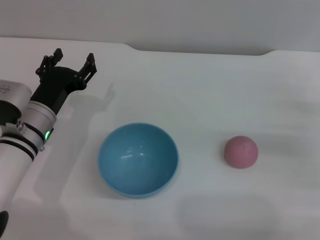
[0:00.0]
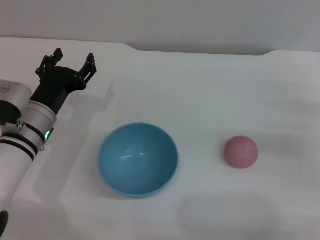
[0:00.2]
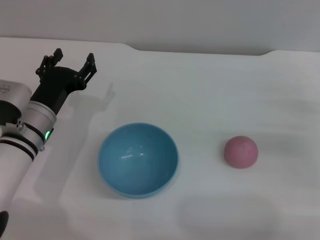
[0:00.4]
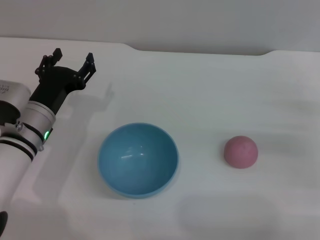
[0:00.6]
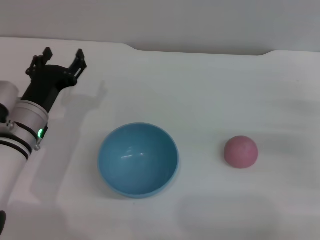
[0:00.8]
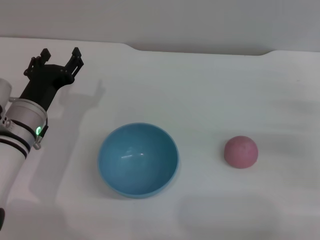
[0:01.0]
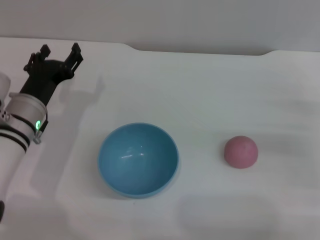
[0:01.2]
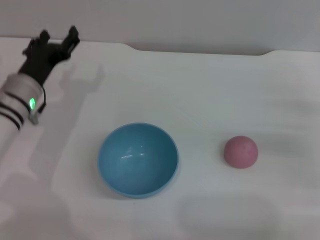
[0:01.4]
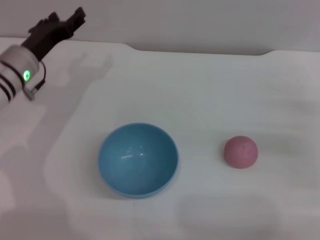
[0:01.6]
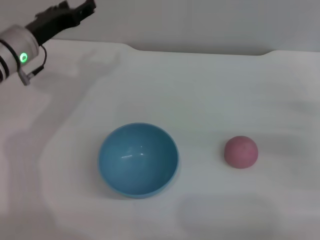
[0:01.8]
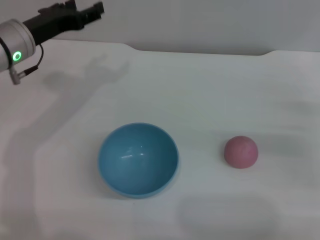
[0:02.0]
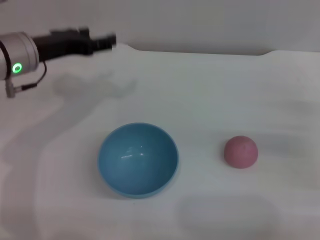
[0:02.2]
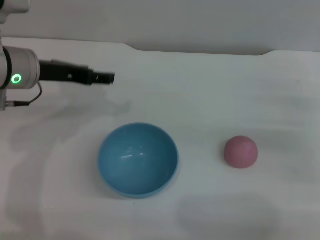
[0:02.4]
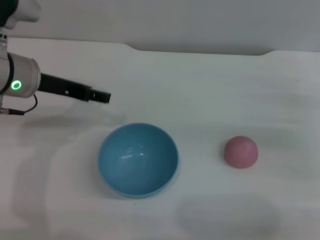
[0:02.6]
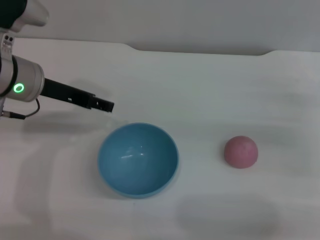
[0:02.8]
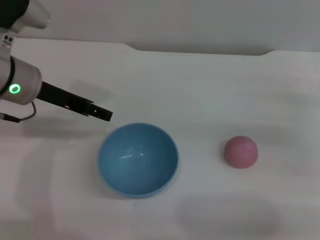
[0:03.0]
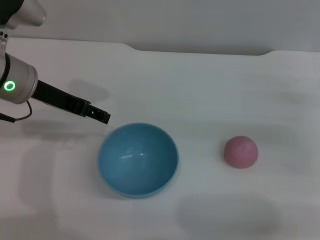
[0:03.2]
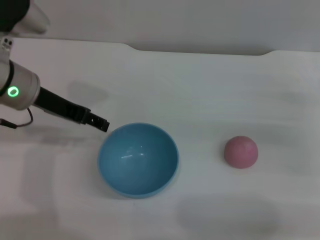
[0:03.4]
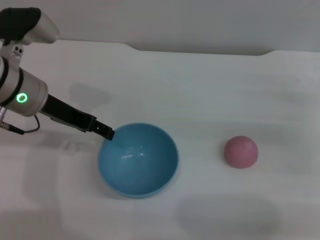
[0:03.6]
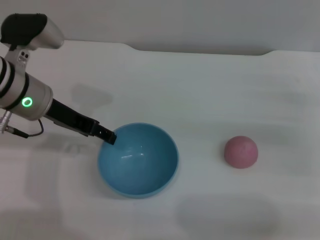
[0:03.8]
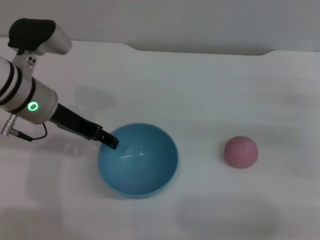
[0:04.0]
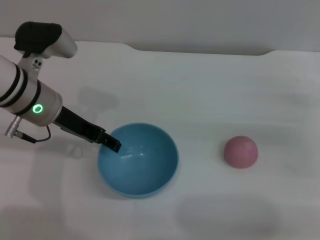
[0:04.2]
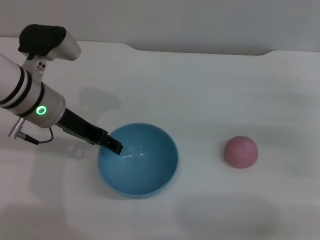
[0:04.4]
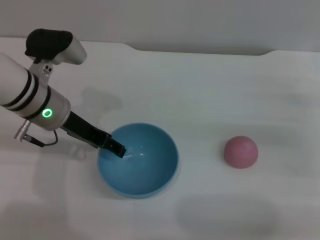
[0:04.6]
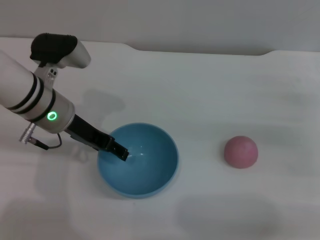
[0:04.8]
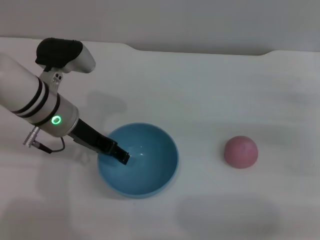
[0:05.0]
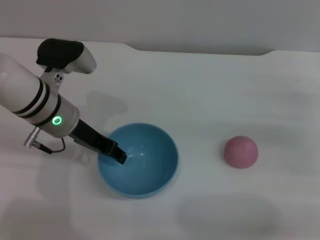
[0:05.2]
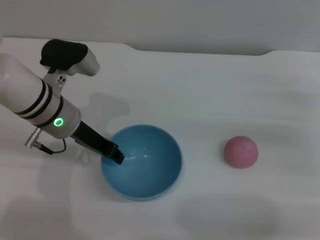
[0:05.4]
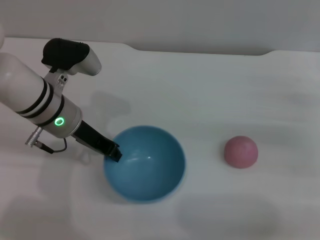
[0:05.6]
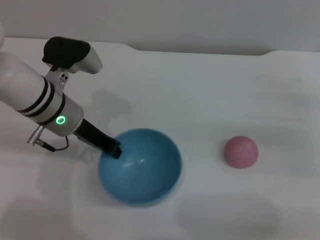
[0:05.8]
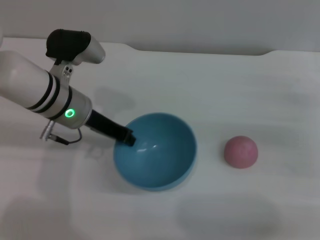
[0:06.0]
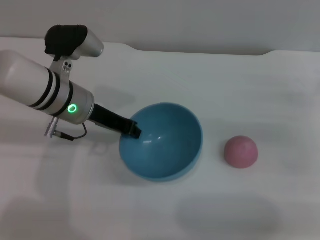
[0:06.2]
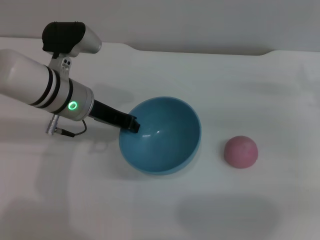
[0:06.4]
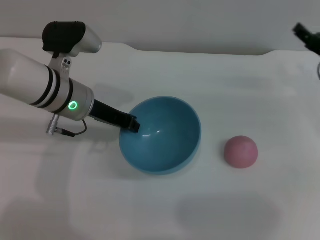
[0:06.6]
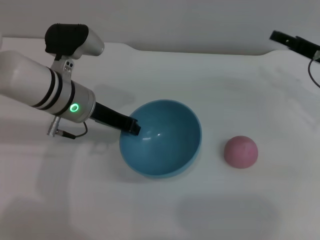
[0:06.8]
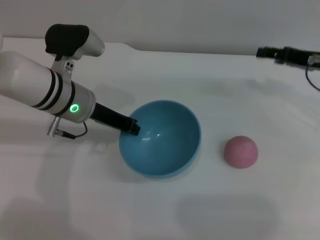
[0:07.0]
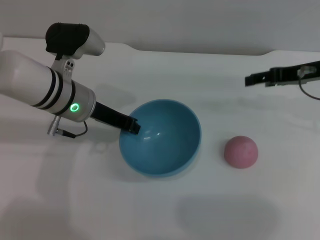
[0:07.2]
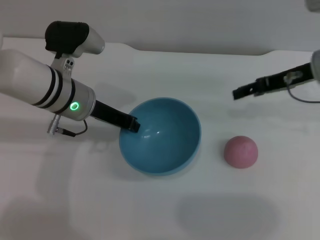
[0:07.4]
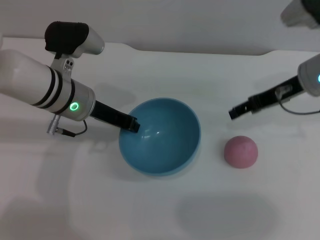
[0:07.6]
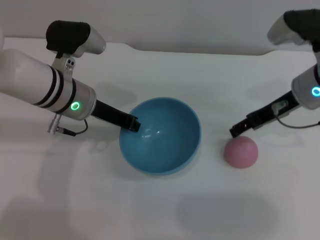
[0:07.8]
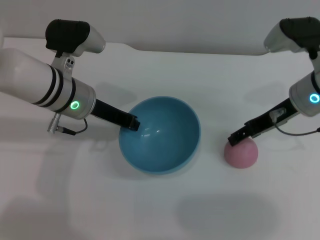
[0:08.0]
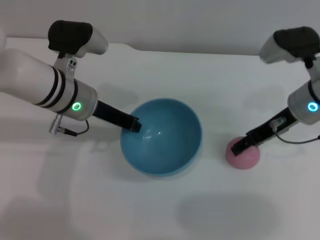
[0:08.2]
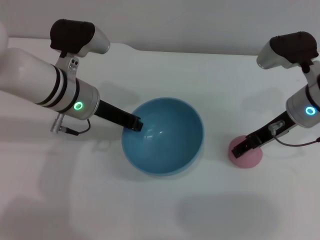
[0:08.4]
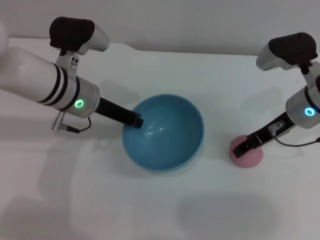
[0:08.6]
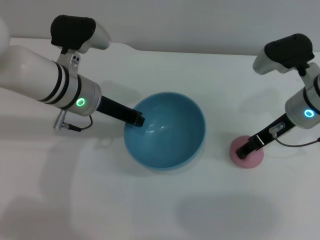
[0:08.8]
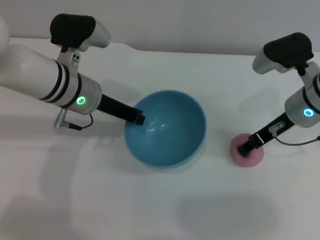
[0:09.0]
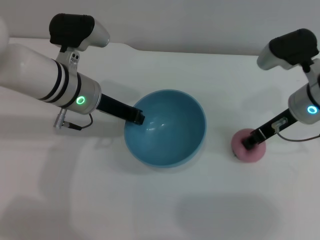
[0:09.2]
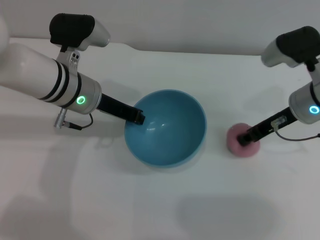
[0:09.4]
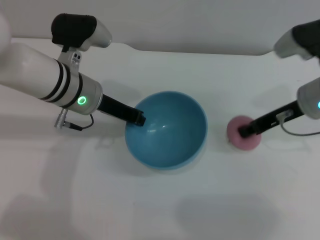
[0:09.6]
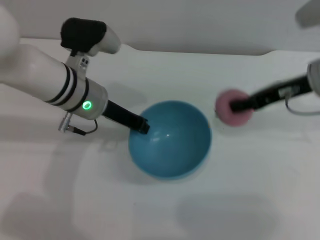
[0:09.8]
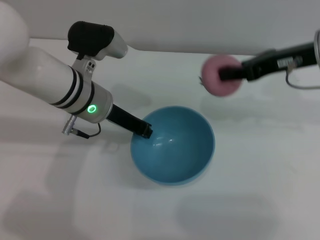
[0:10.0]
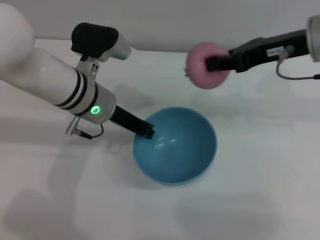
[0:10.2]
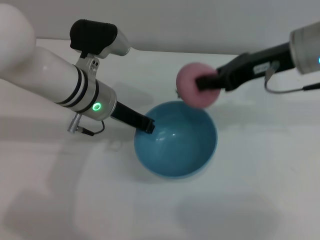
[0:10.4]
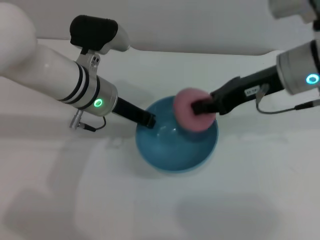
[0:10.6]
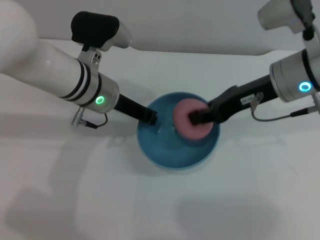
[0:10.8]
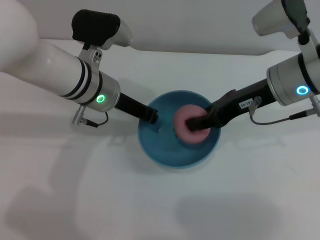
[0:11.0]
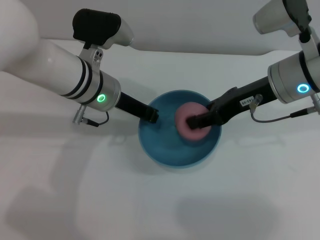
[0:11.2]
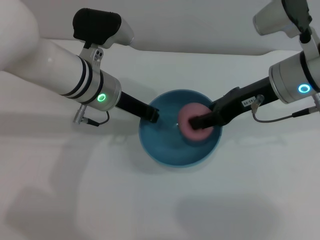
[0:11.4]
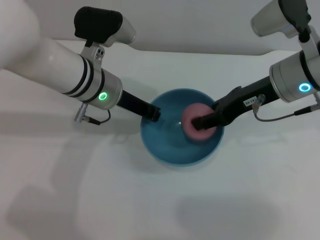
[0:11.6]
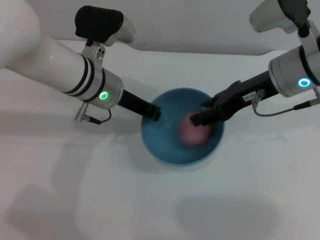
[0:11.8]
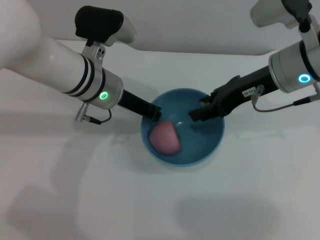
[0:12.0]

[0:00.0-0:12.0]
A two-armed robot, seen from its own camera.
Task of the whole recording: put the peach into the blue bowl and pour it out repeatedly.
Step, 0.0 to 6.2 s: Pick up the bowl with the left gripper.
Step, 6.6 to 9.6 s: Pick up the peach with the right gripper.
0.0 to 1.6 s: The left gripper shifts some 5 cm forward.
1.6 to 3.0 s: The left gripper heads upward, covering some 10 cm.
3.0 to 4.4 s: The grippers move only a little.
4.4 to 6.0 s: The left gripper closes.
6.0 to 7.6 s: The right gripper goes roughly 15 cm to the left, upward and forward.
7.6 to 9.0 s: There are only small adjustments of the grippers.
9.0 to 10.4 s: The right gripper shifts approximately 10 cm upward, and closes its fingers.
10.4 to 12.0 s: The right gripper opens its fingers.

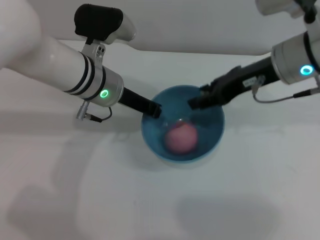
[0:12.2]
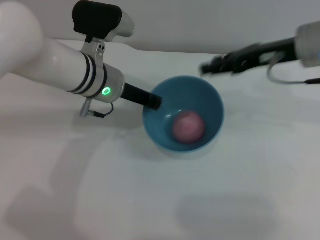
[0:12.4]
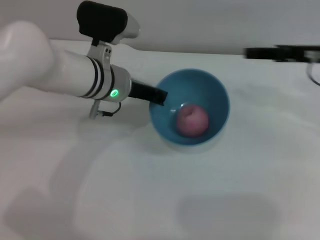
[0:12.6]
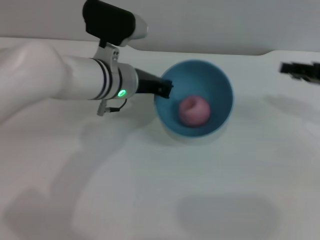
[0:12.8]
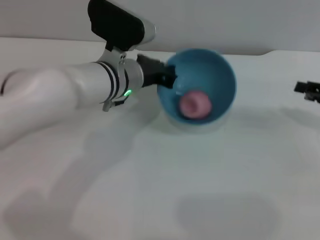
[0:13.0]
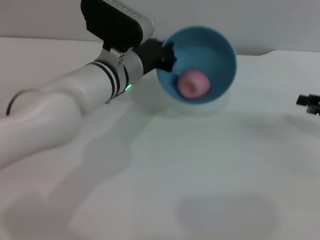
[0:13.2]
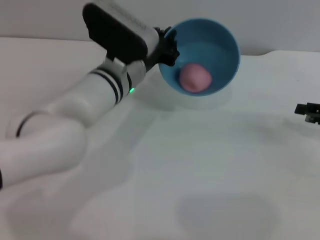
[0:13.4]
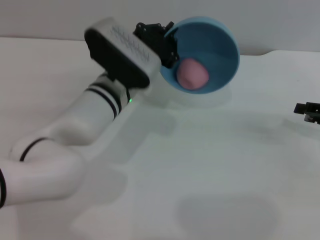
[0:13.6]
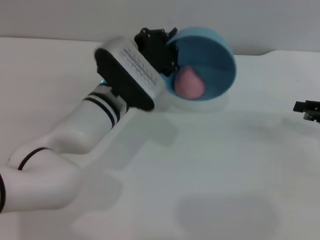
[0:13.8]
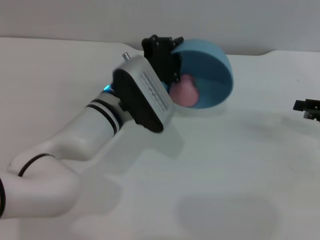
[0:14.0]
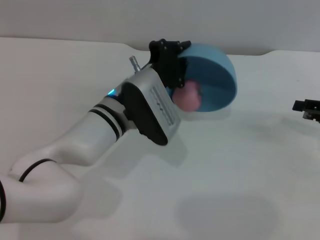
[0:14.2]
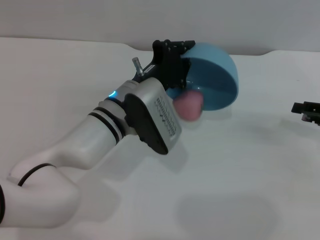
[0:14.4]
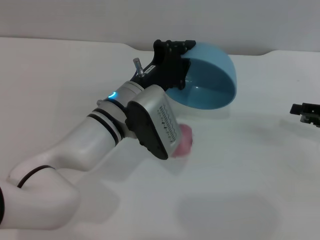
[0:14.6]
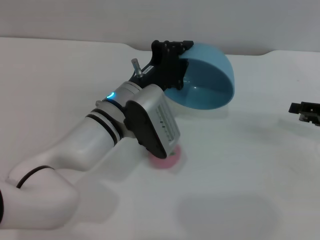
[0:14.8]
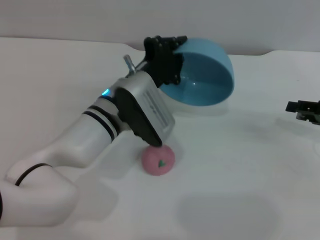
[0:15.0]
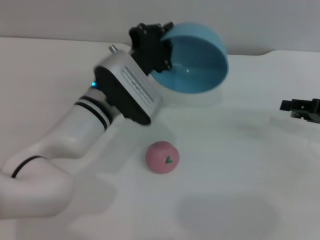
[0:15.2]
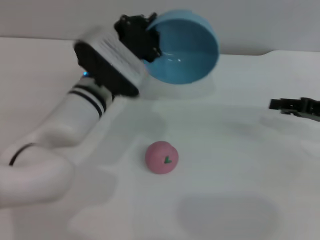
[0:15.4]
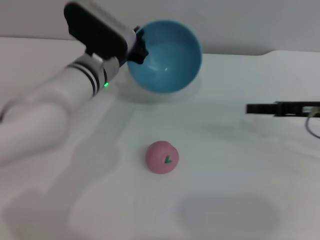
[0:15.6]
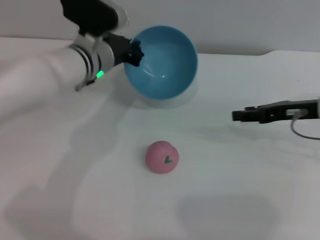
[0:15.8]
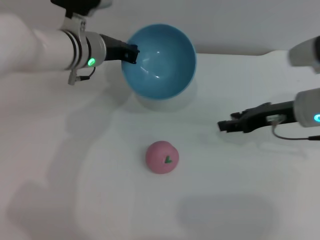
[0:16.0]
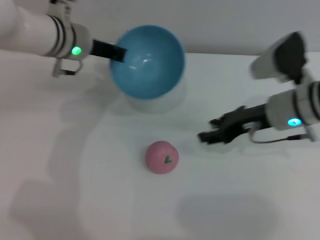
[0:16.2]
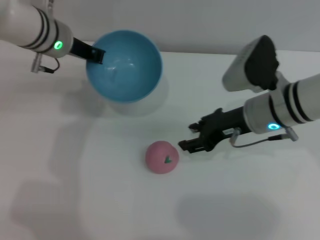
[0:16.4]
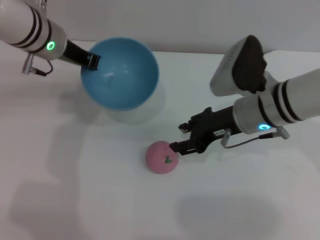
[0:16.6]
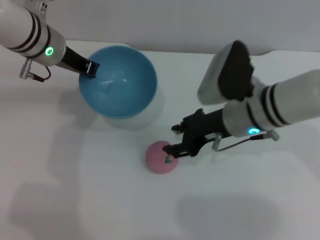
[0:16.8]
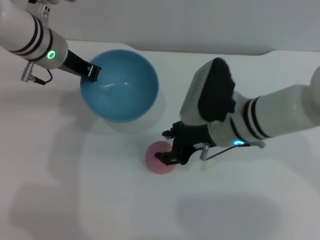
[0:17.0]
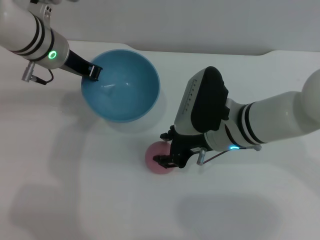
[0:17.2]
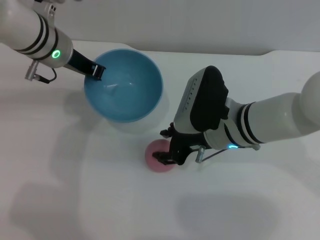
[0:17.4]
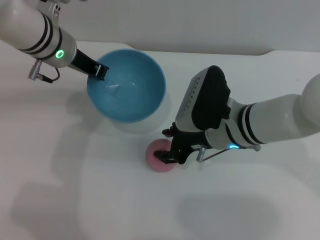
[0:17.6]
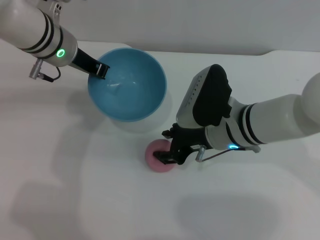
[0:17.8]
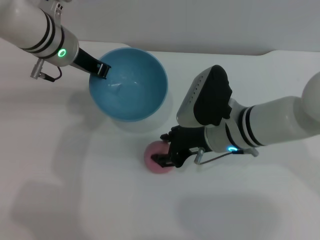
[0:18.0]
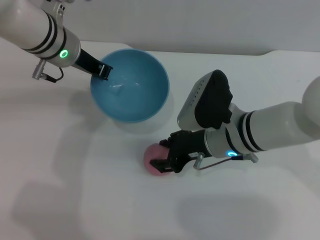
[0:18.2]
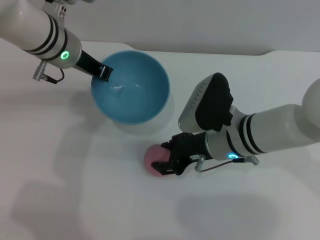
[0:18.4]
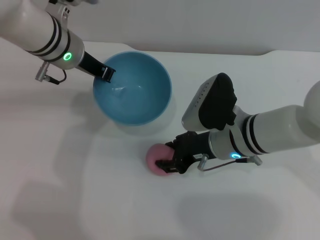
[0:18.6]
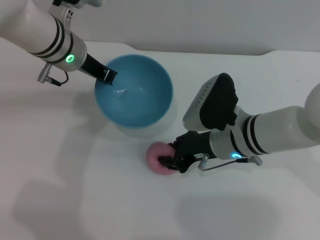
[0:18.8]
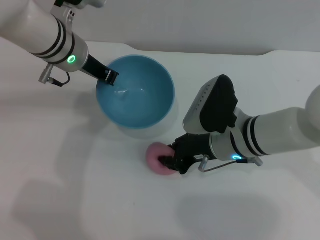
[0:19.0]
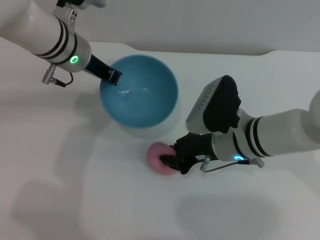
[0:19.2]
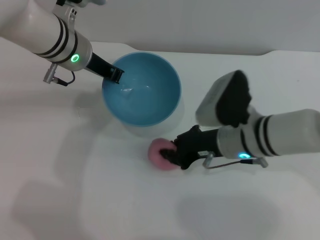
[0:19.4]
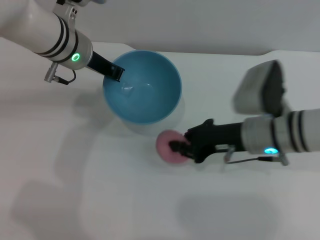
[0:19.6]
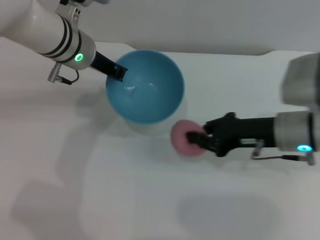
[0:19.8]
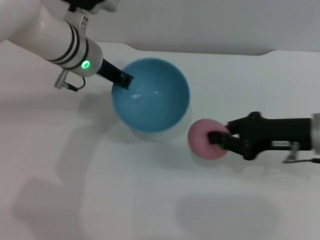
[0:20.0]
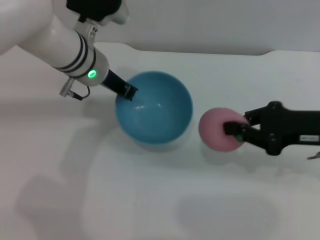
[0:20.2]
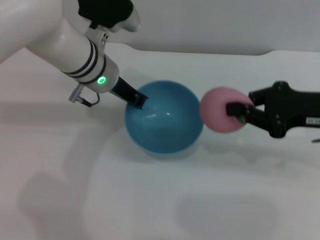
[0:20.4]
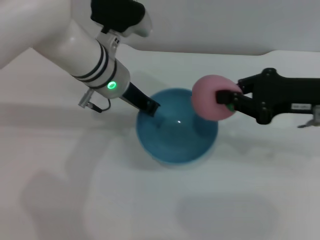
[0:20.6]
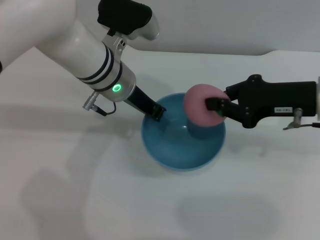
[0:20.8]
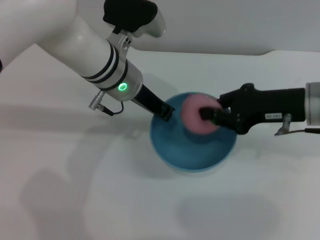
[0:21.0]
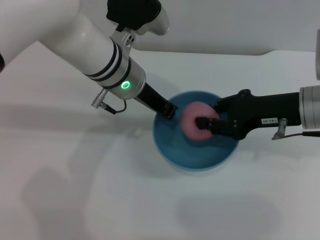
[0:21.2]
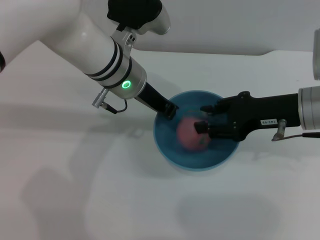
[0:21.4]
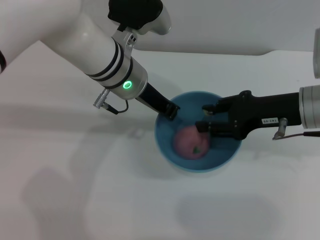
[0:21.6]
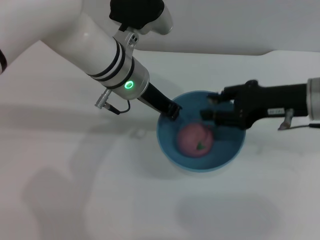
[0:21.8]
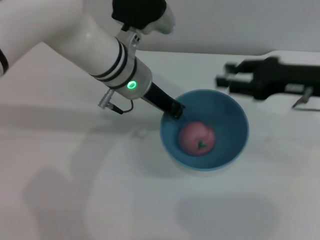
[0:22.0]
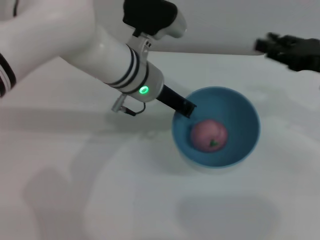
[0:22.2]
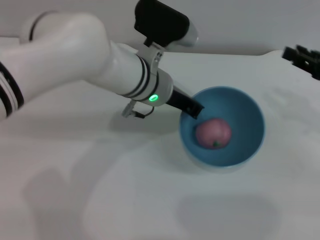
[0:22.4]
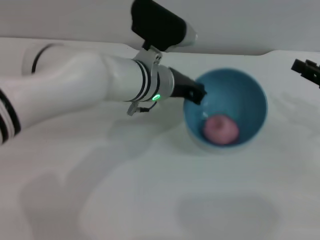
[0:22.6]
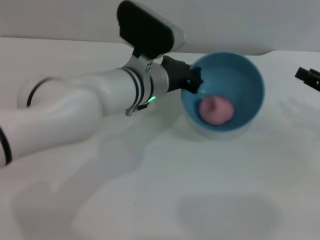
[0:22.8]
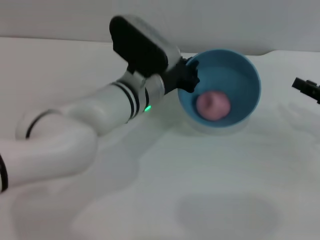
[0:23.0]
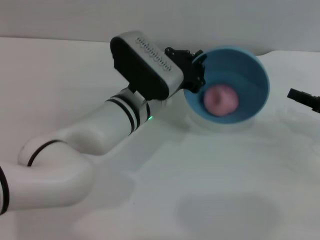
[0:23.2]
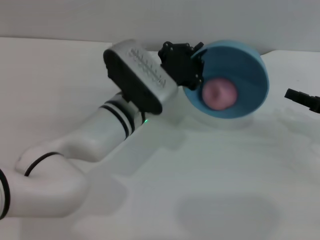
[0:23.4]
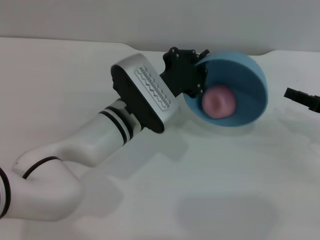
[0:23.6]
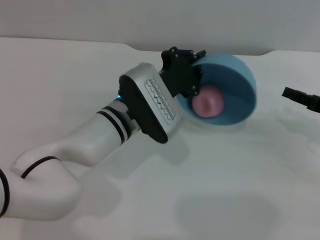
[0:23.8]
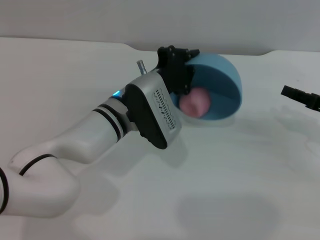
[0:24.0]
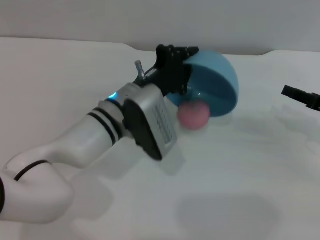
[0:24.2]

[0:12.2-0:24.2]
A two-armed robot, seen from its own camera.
Task of the whole recording: put the peach into the blue bowl and pour it out repeatedly.
Step, 12.4 to 15.0 s: Pour the peach out of bowl.
Step, 15.4 to 19.6 s: Pick up the peach with the right gripper.
Step, 19.8 to 21.8 s: Place the peach into the bowl.
12.2 to 13.8 s: The right gripper heads to the right and downward, covering roughly 20 cm, while the left gripper changes place by about 5 cm.
15.2 to 16.6 s: The left gripper travels to the left, upward and forward by roughly 15 cm; the right gripper moves to the left, approximately 20 cm.
16.6 to 18.2 s: The right gripper changes place by some 5 cm.
18.2 to 19.8 s: The right gripper goes roughly 10 cm to the right, and closes its fingers.
19.8 to 21.2 s: The left gripper goes about 5 cm to the right.
21.2 to 22.6 s: The right gripper is displaced to the right by roughly 10 cm, and opens its fingers, while the left gripper moves about 5 cm.
22.6 to 24.2 s: The left gripper is displaced downward by about 5 cm.
